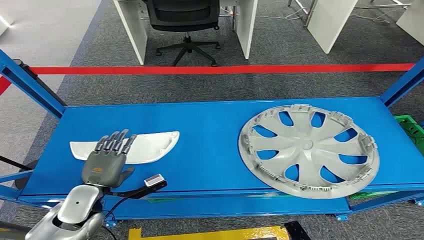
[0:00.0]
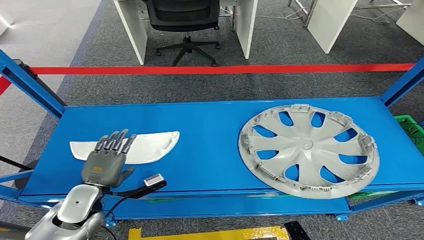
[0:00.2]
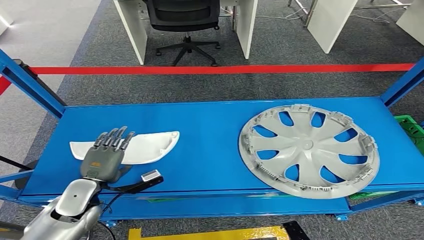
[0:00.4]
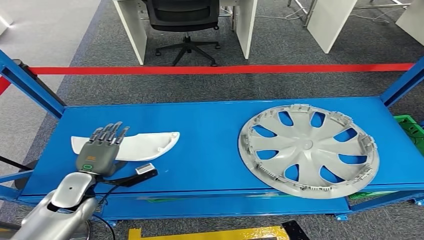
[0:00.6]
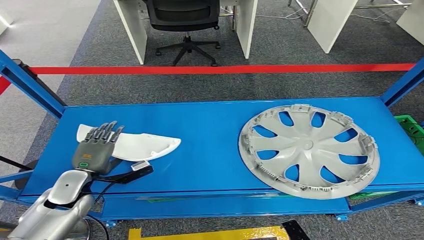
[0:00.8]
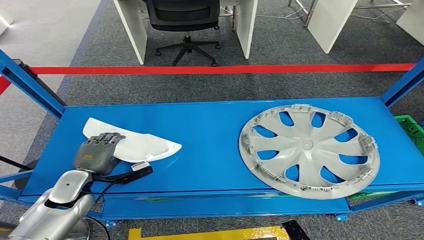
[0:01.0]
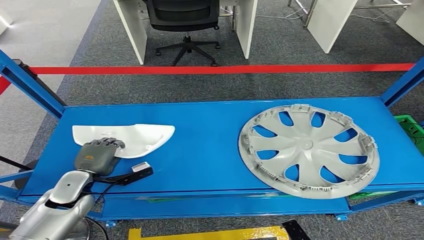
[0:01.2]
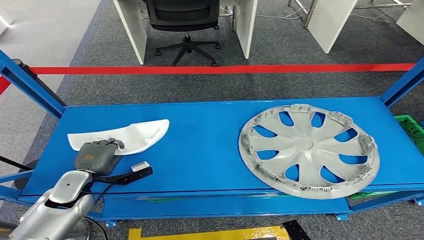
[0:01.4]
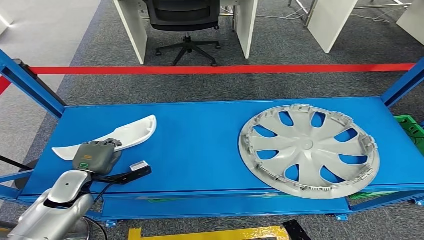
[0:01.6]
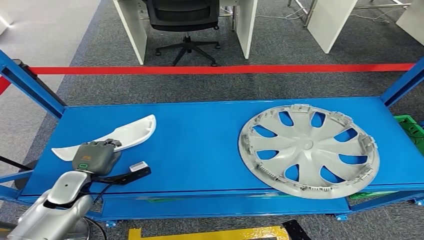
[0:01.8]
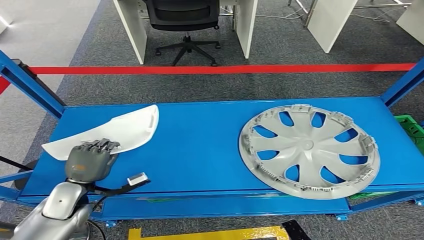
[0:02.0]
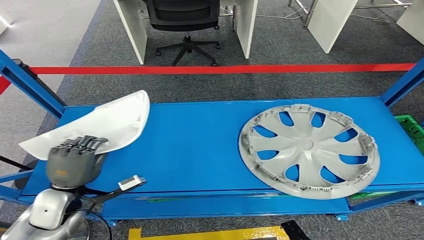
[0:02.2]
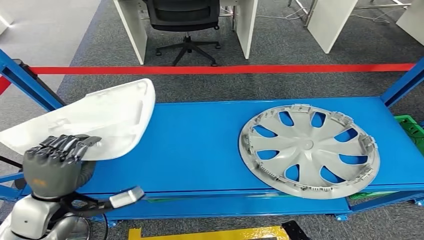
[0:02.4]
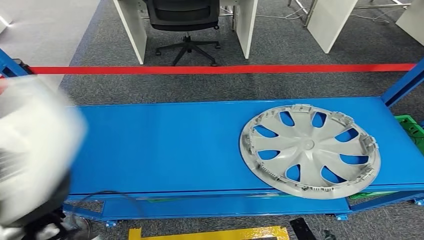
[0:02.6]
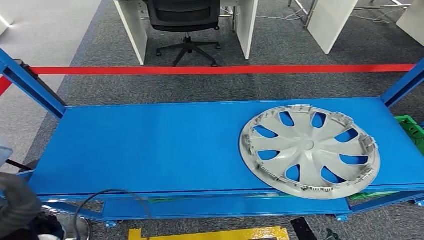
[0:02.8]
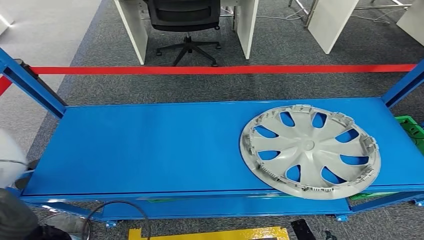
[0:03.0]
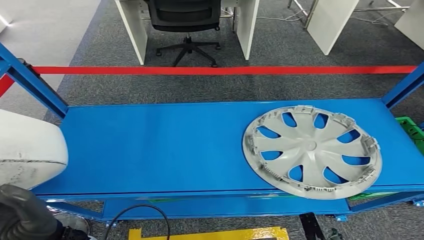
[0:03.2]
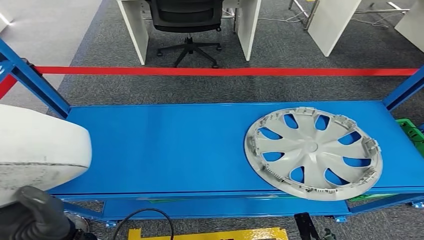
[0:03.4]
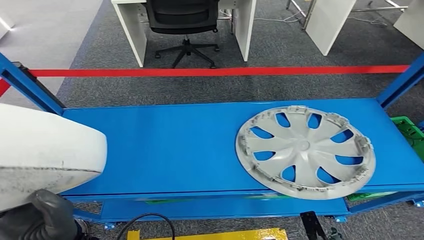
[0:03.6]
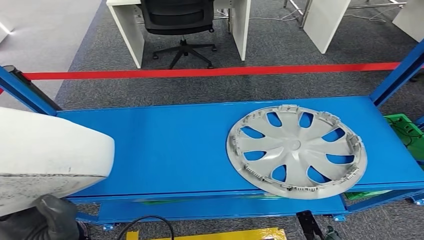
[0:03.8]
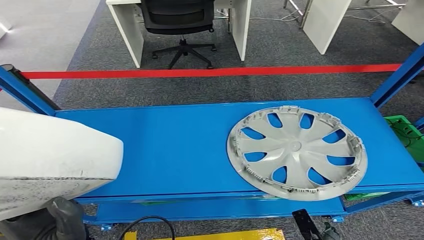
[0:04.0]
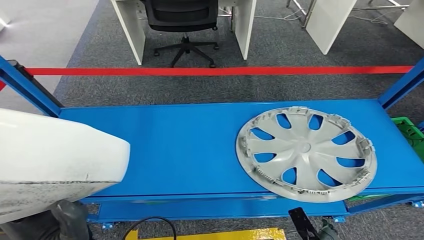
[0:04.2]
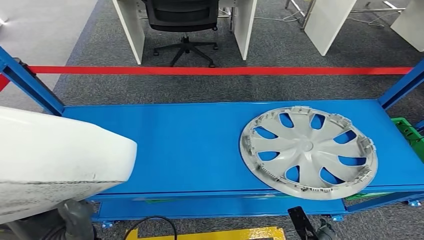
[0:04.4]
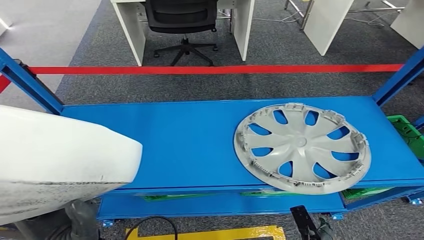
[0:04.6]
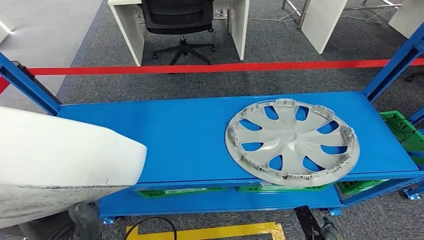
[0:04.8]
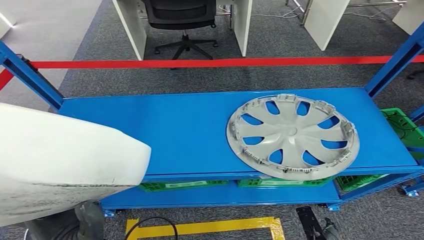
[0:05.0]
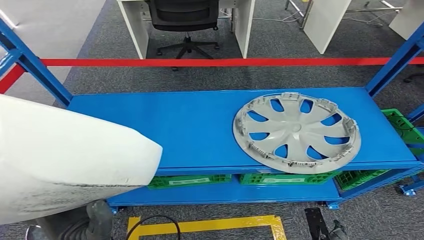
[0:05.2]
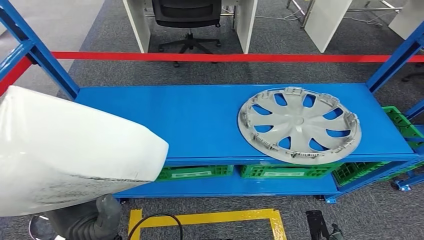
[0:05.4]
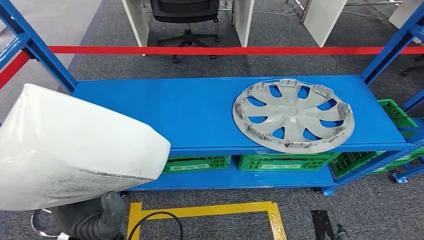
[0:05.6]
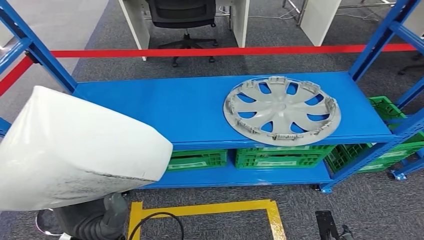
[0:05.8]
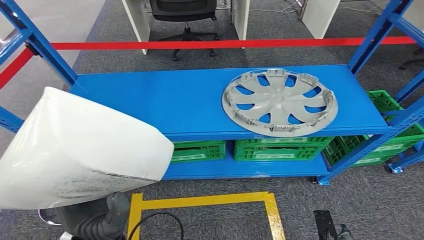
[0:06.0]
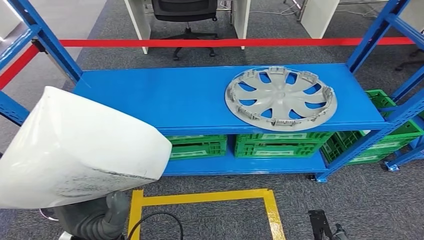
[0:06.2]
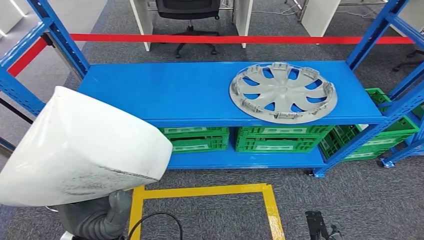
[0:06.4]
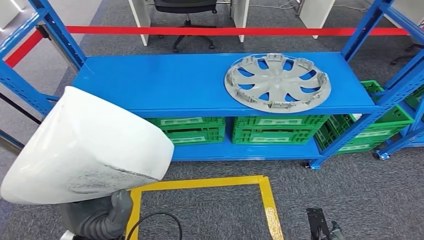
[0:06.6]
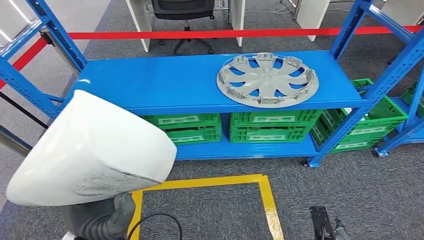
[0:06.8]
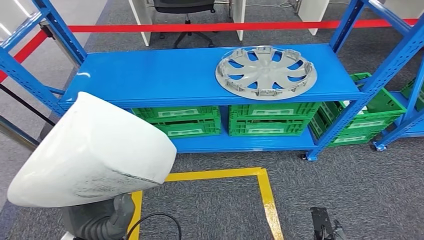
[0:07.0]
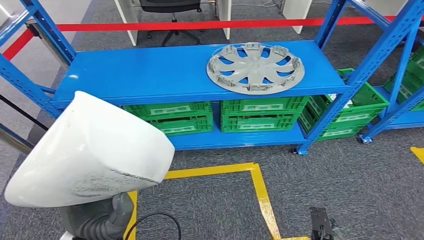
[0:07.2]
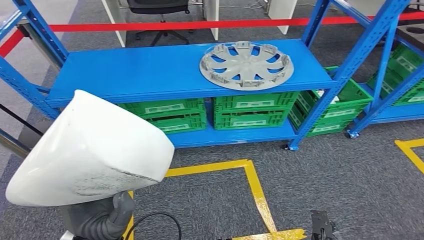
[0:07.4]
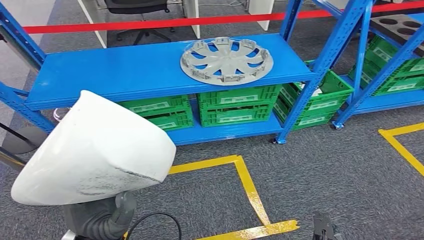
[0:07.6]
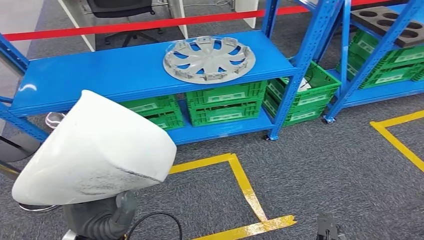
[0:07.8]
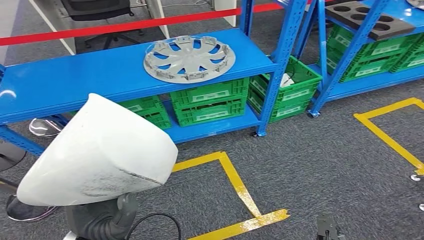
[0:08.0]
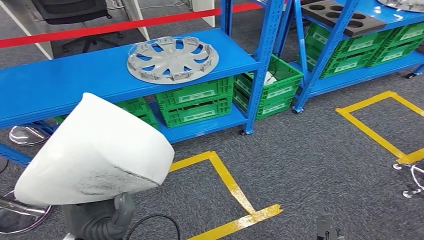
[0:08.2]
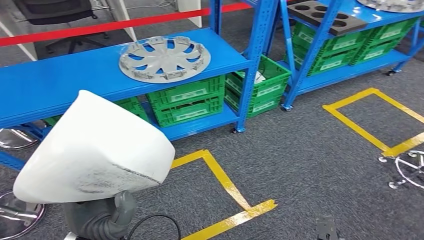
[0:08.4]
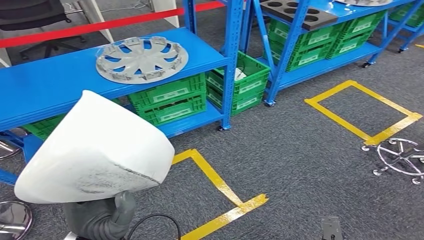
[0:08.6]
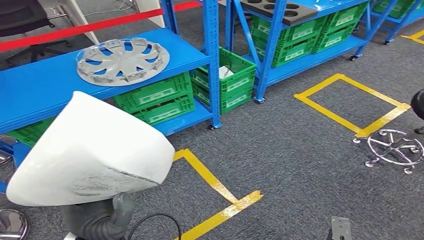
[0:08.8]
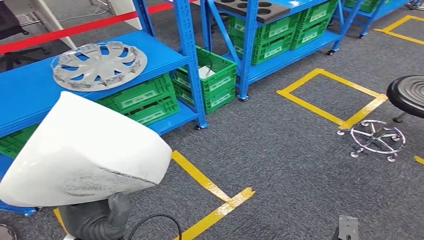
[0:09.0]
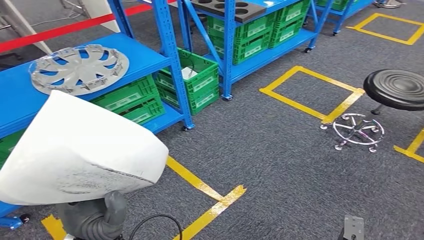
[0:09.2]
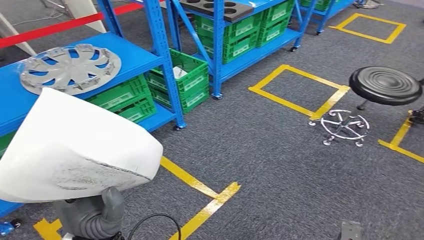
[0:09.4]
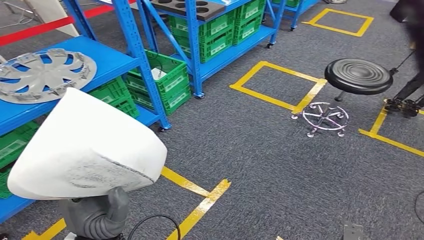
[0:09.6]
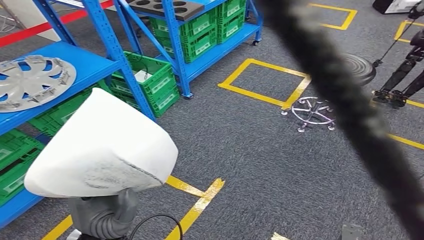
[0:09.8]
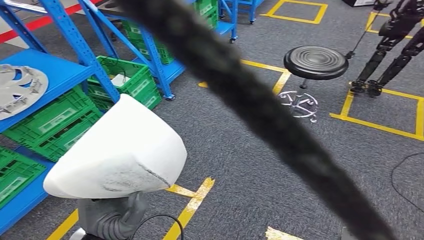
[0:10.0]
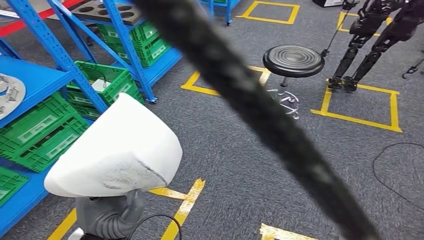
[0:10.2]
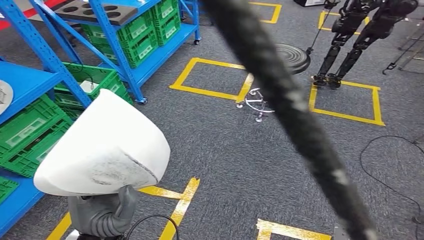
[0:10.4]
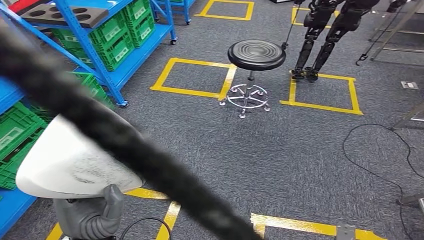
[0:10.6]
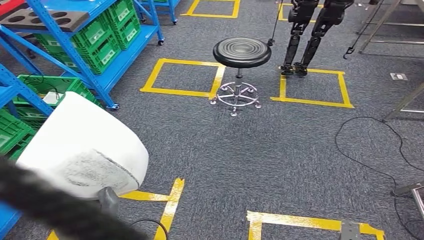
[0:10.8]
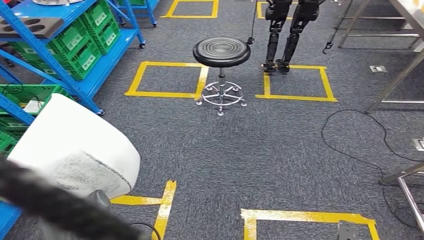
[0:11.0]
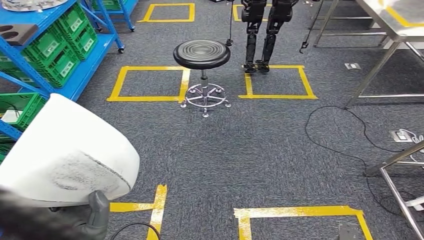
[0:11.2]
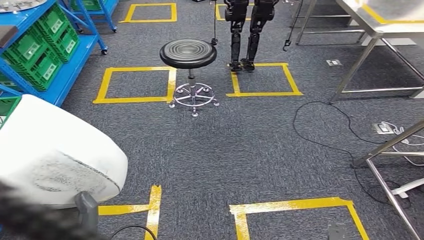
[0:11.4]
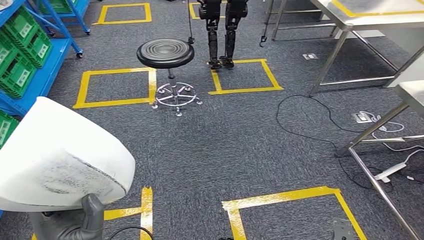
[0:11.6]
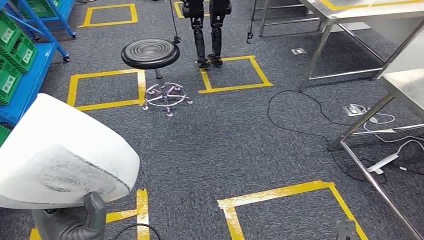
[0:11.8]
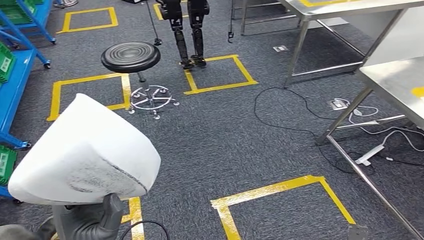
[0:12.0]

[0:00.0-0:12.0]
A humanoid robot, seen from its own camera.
Step, 0:00.0 to 0:04.0: Pick up the small component from the shelf.
0:01.6 to 0:03.0: The left hand is displaced upward, to the right and backward by some 20 cm.

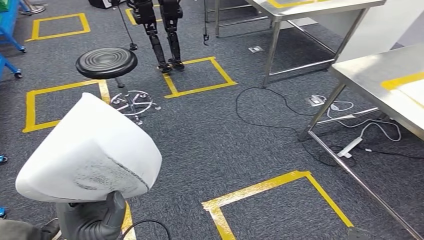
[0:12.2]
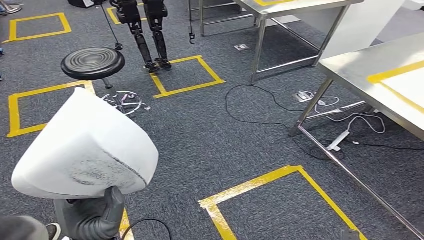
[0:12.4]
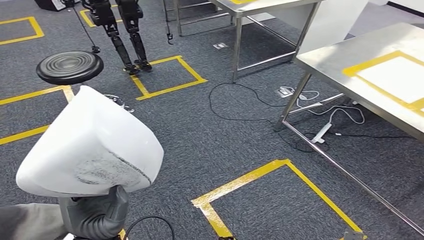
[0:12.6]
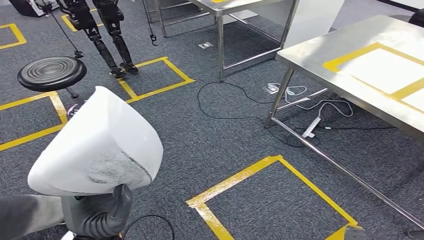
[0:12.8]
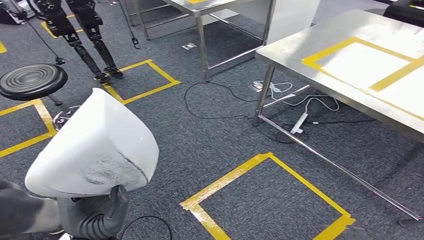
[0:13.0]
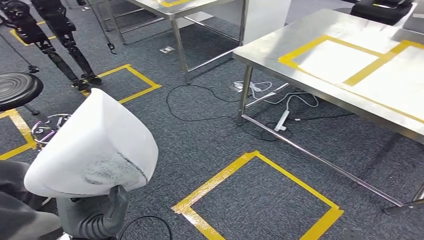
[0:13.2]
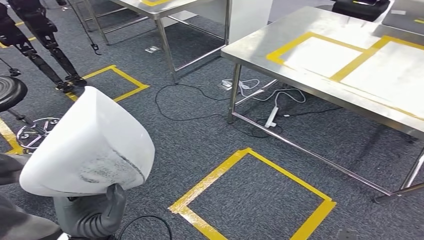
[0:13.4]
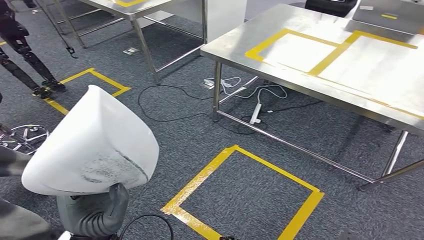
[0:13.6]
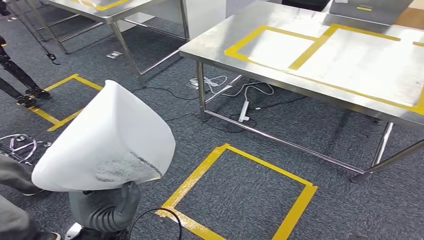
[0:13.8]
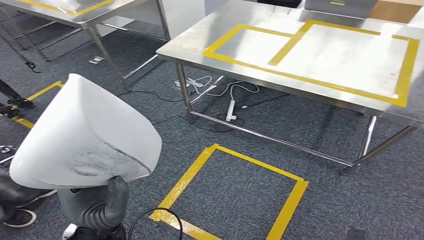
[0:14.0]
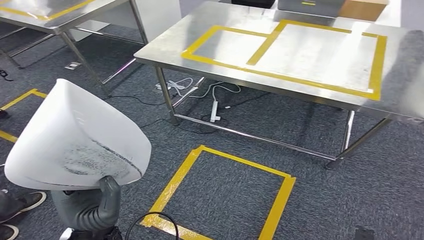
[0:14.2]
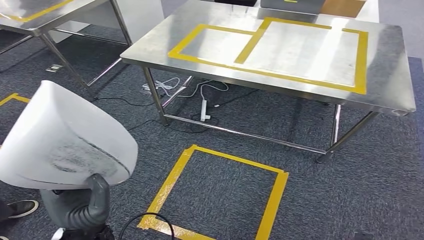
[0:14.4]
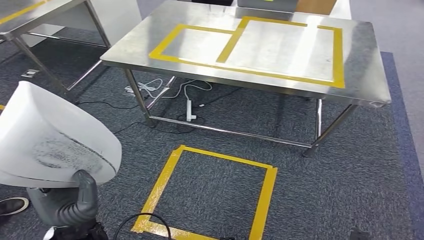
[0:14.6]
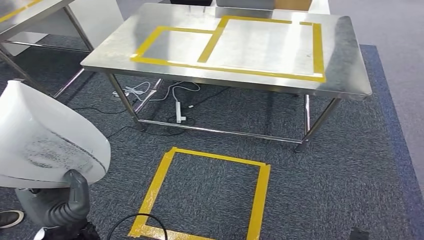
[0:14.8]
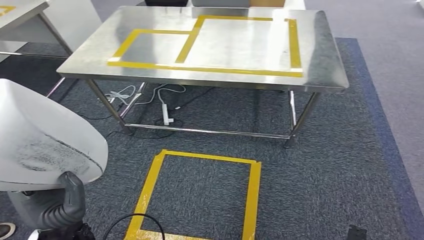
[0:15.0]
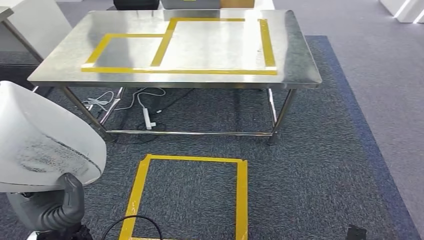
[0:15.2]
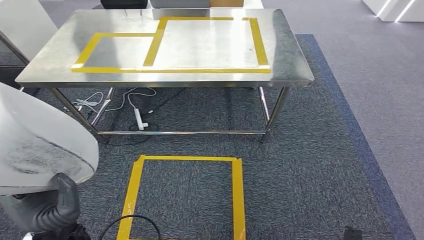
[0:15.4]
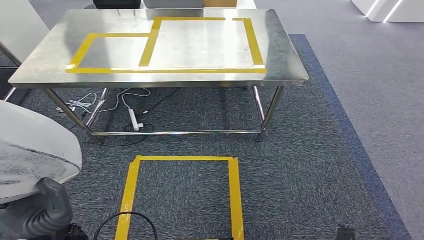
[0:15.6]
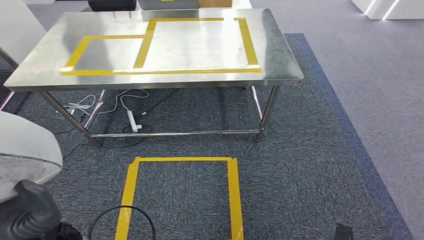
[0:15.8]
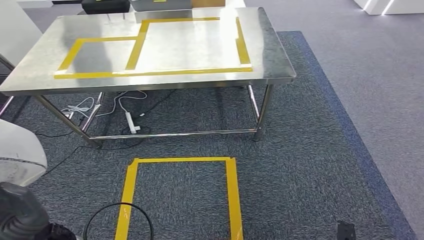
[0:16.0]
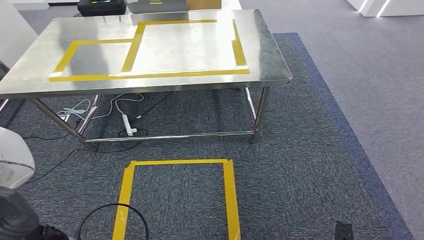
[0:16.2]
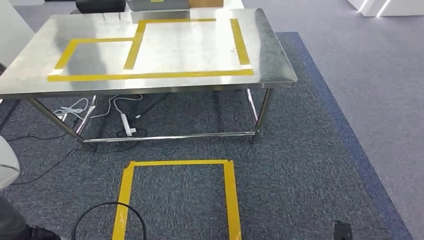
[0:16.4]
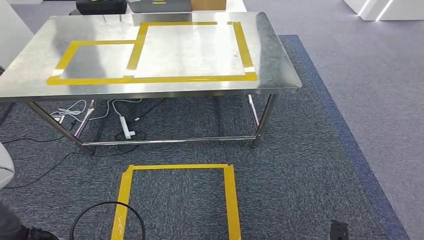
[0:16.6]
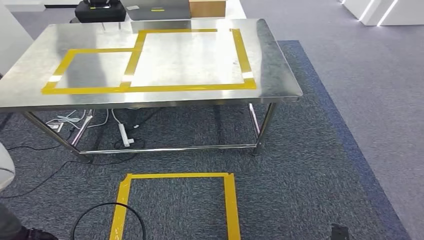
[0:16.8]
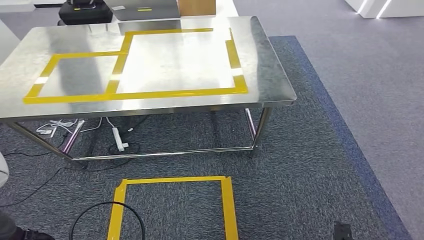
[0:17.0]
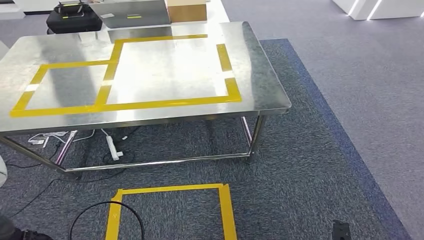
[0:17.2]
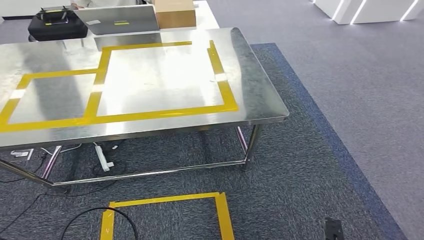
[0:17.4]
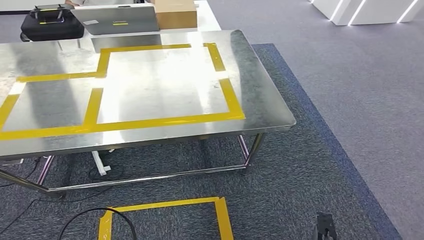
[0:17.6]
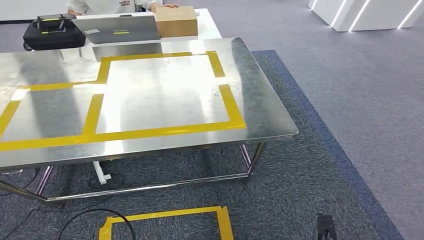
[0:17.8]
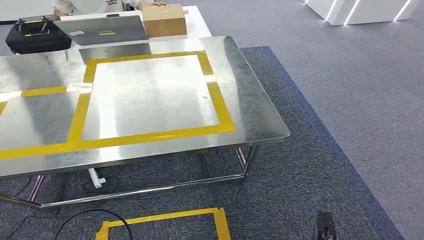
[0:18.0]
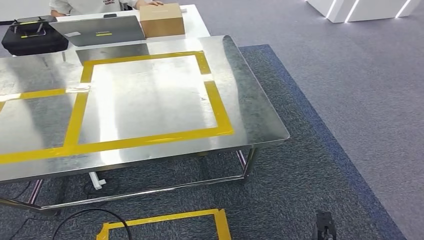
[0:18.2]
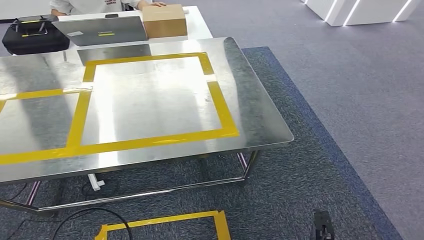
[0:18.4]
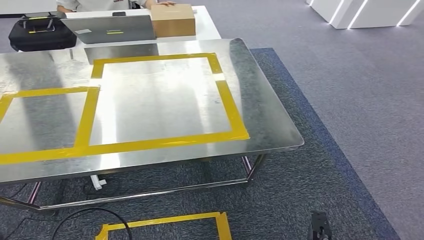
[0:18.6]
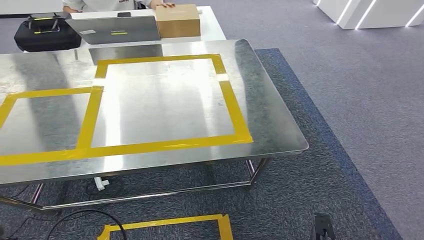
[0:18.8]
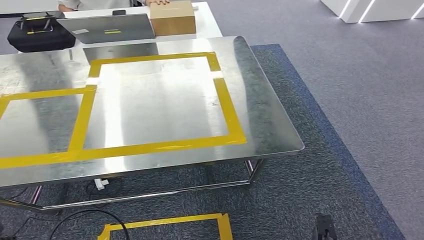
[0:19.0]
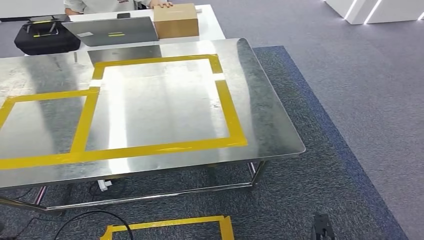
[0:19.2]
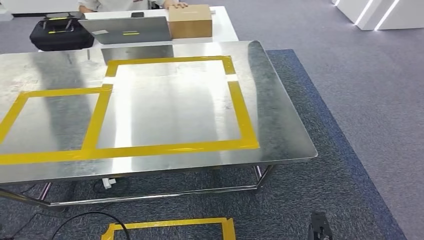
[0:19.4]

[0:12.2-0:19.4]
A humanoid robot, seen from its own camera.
Step, 0:12.2 to 0:15.2: Move the small component to the workbench.
